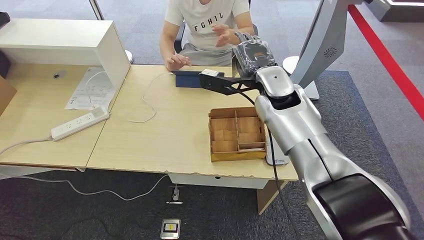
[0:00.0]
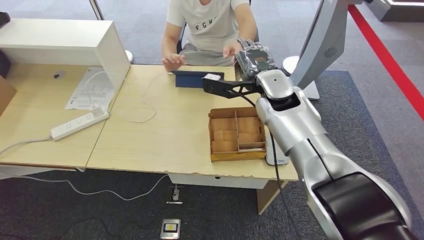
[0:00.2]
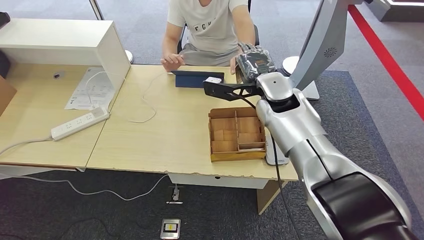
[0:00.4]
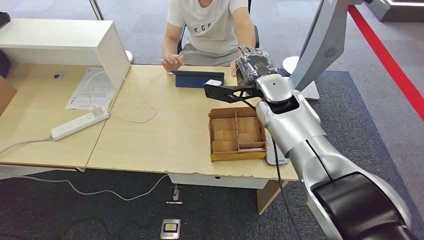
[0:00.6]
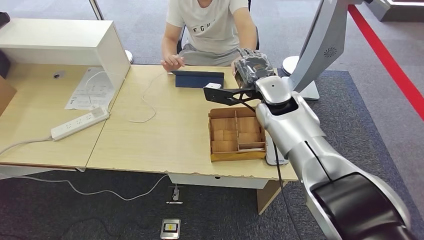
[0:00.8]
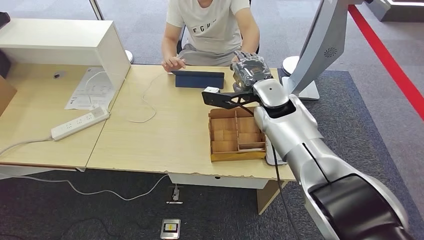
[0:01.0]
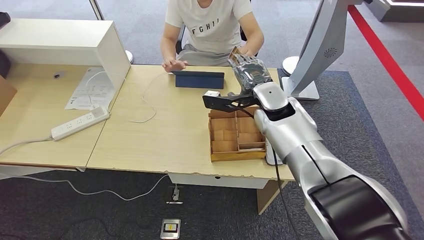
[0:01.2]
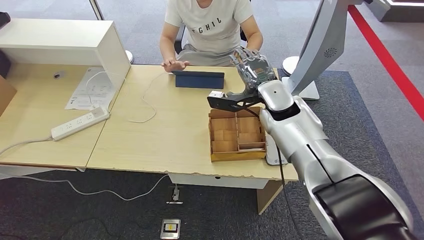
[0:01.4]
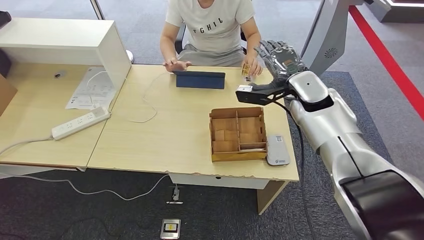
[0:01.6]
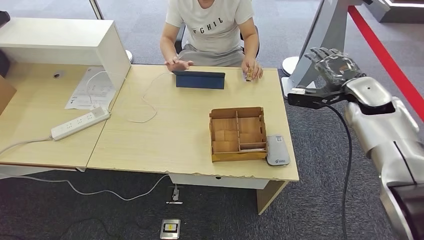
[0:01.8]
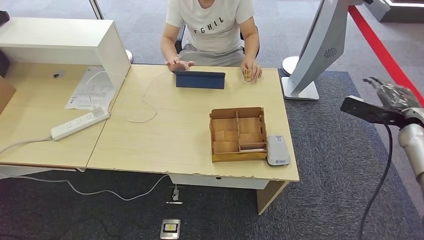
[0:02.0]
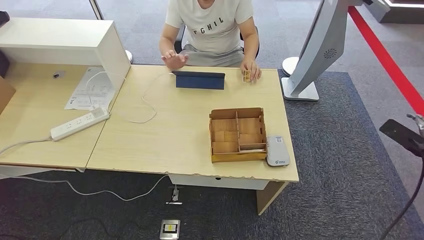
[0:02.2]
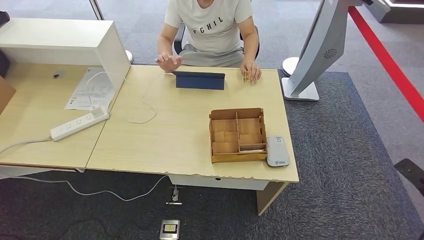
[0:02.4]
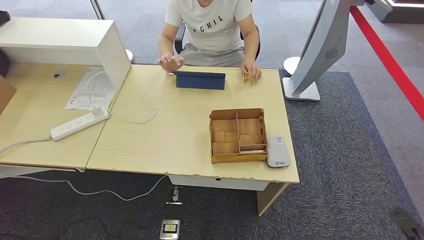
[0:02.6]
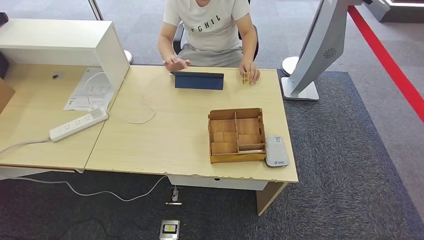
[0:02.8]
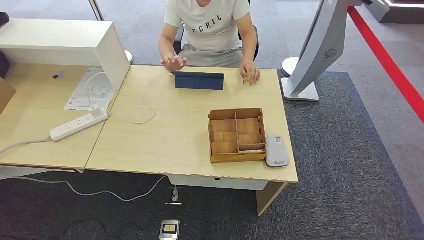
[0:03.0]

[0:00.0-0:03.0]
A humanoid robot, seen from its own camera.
Step, 0:00.0 to 0:03.0: Hand the room key to the person.
0:00.0 to 0:01.6: The right hand travels to the right by roughly 10 cm.
0:01.6 to 0:03.0: The right hand is displaced backward, downward and to the right by some 60 cm.

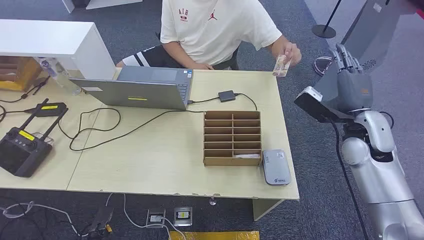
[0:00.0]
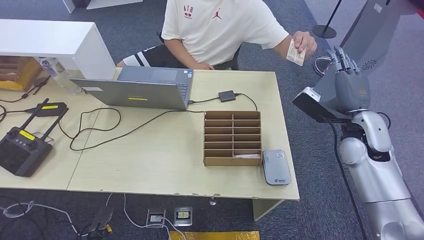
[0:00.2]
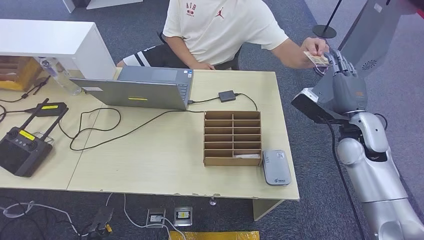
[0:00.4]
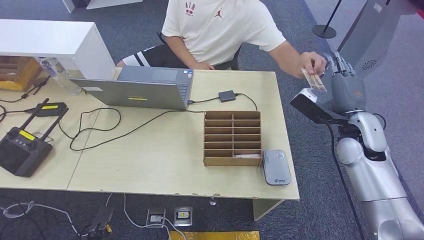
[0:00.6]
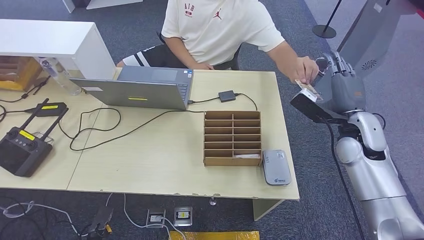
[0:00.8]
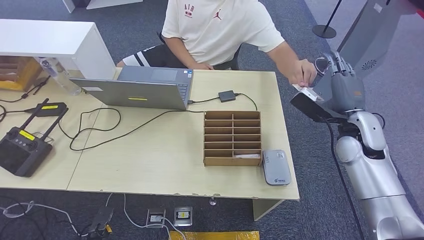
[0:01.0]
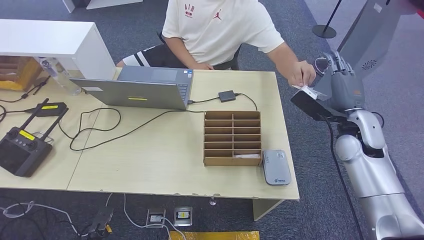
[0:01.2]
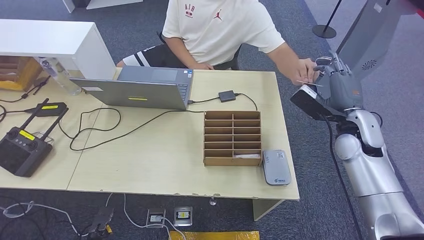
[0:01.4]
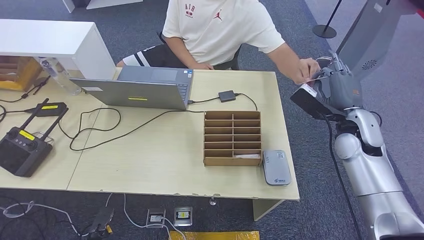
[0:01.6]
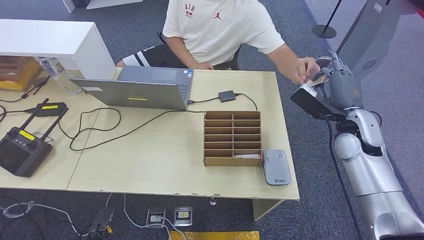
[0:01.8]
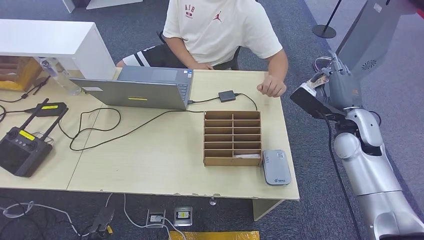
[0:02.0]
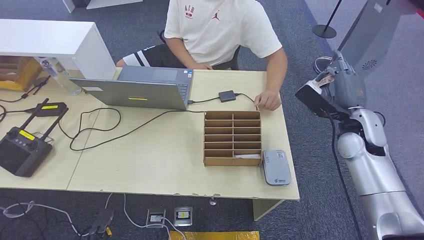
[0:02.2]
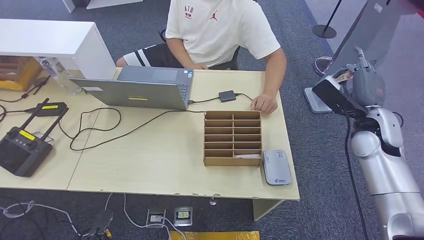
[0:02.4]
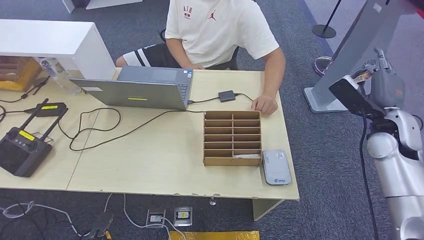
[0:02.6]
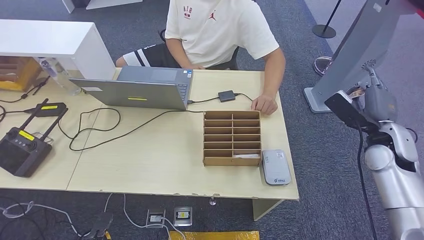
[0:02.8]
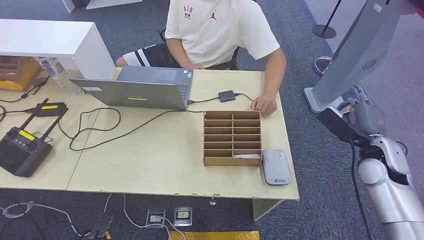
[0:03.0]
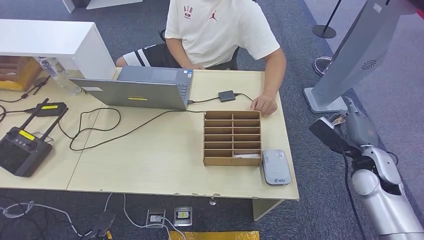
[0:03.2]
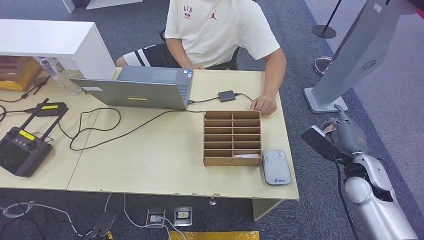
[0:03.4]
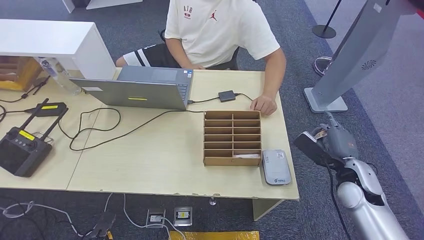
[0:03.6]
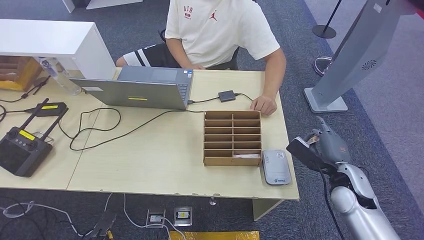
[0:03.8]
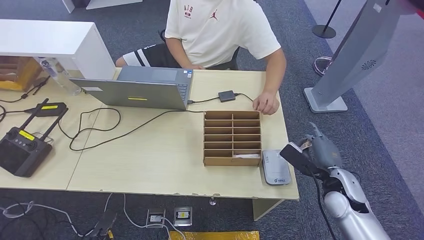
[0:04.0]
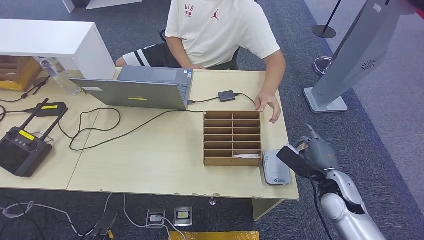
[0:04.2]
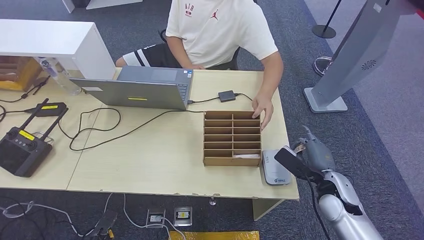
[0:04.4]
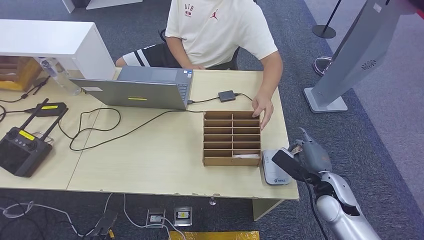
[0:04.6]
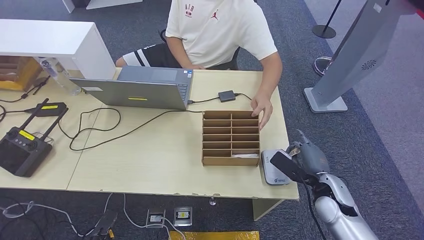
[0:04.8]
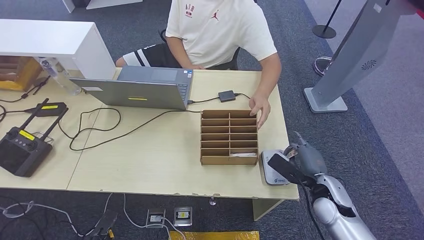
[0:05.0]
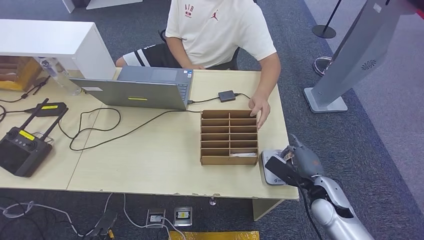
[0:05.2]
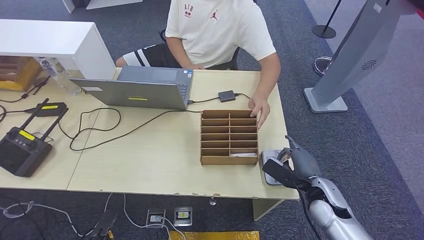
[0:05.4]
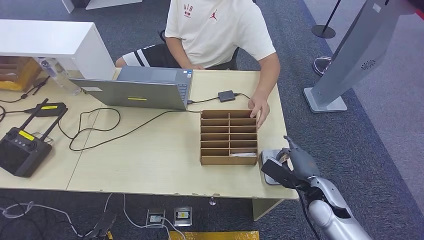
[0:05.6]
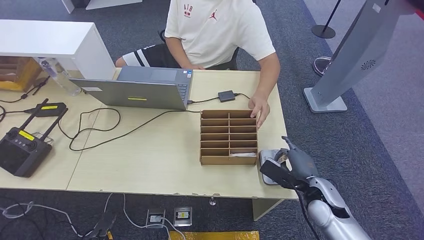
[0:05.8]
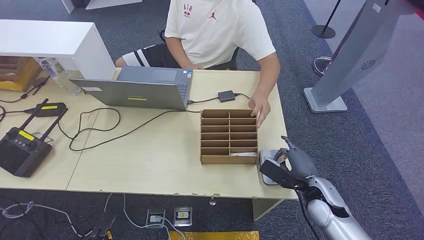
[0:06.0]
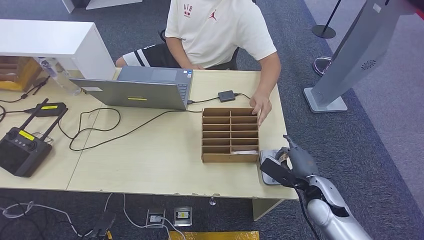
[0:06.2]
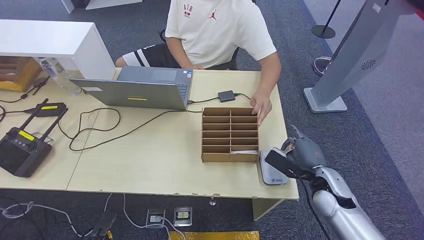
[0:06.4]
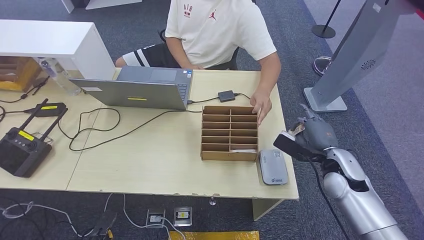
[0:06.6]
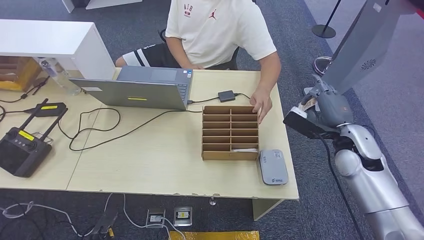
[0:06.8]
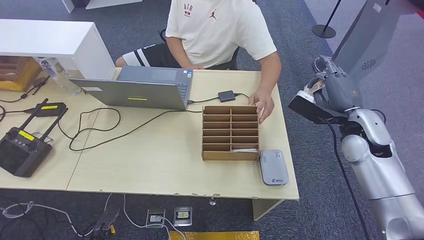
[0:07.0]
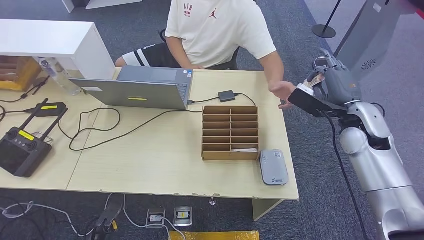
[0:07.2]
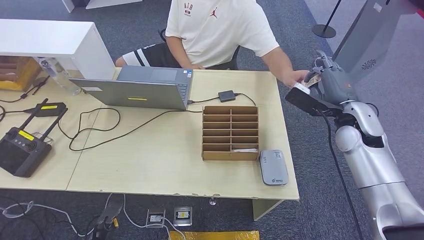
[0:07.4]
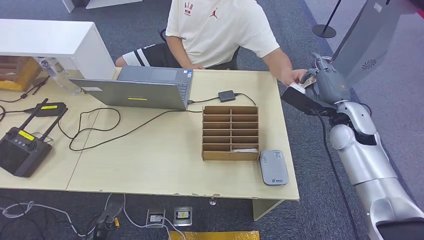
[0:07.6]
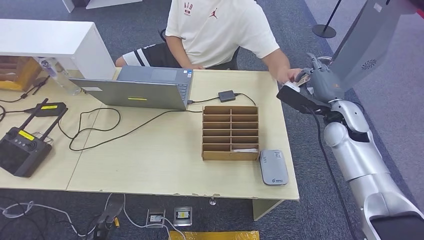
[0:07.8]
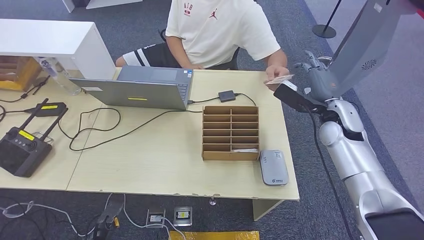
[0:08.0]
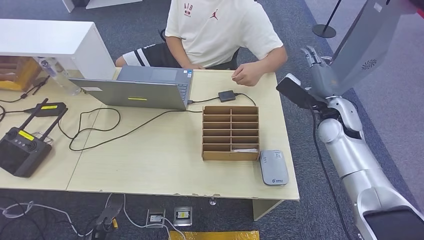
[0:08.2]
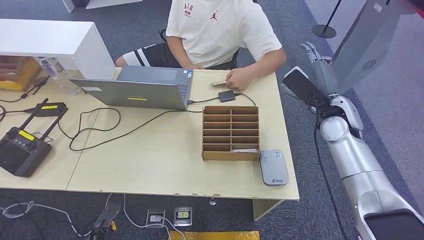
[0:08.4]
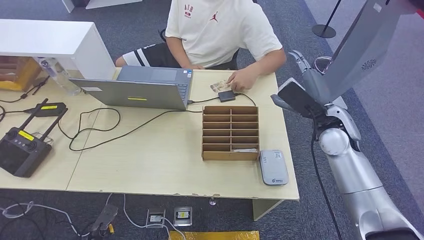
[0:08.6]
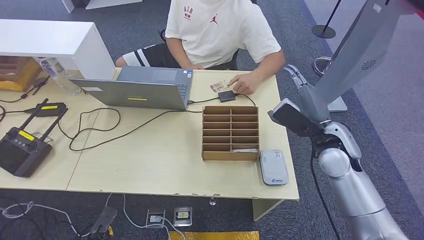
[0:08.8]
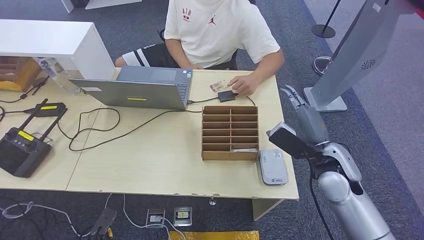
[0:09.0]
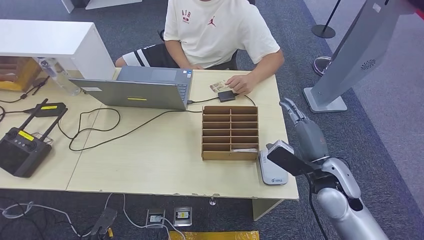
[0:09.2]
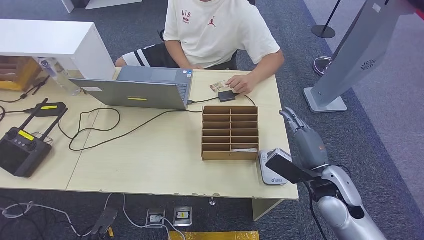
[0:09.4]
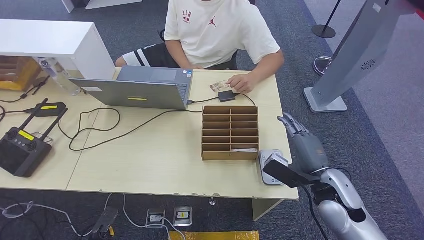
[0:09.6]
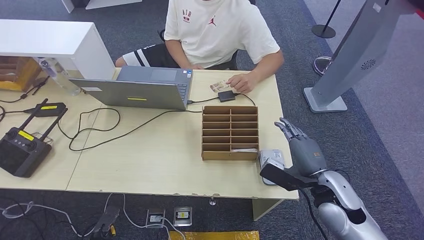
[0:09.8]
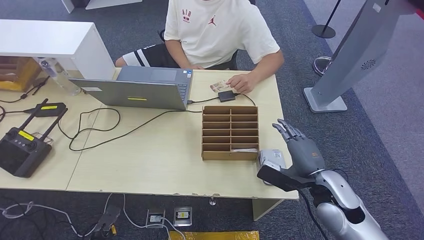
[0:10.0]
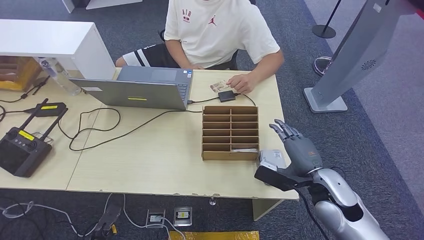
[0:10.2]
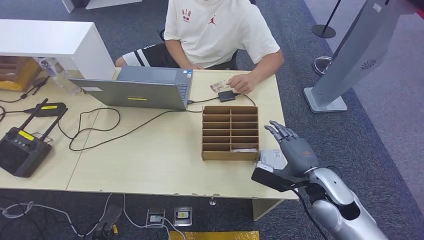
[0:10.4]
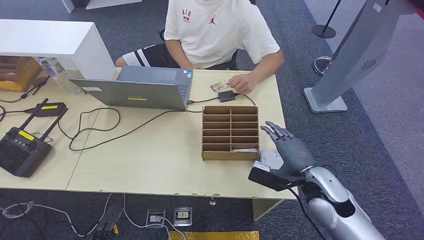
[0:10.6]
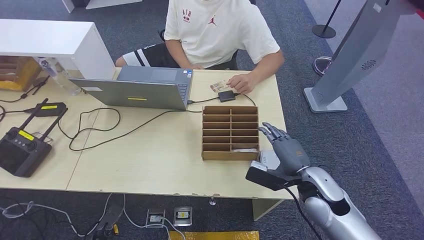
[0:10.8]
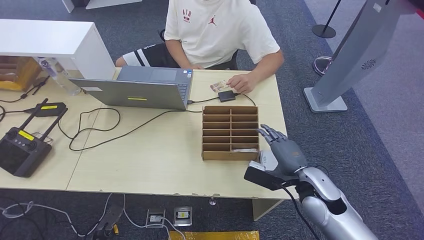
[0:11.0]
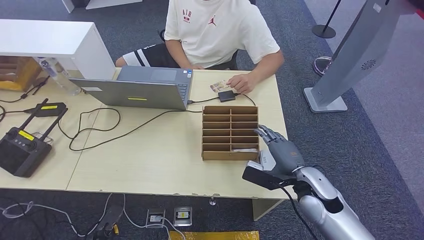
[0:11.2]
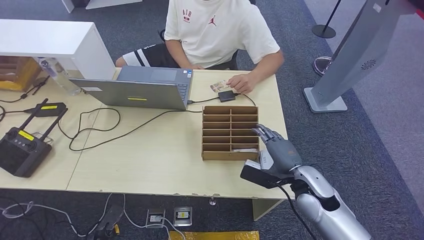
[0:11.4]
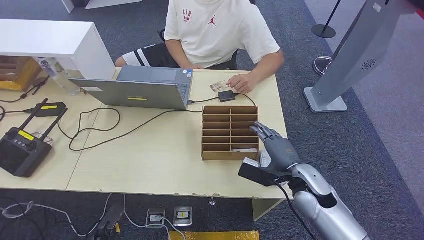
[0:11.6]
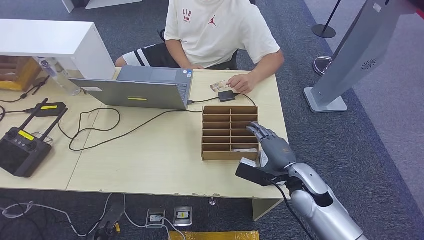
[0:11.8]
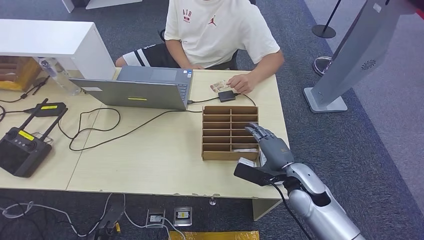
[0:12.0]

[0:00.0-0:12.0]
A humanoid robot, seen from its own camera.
Step, 0:00.0 to 0:02.8: Take the ID card from the person's hand.
Step, 0:03.0 to 0:05.2: Place the ID card on the card reader.
Step, 0:05.4 to 0:08.2: Hand the ID card to the person.
0:01.6 to 0:03.0: The right hand heads to the right, covering roughly 5 cm.
0:03.0 to 0:04.4: The right hand goes about 15 cm downward, to the left and backward.
0:04.4 to 0:06.0: The hands stay close to where they were, moving slightly.
0:06.0 to 0:07.6: The right hand is displaced upward and forward by about 20 cm.
0:07.6 to 0:09.0: The right hand is displaced backward and to the left by roughly 10 cm.
0:09.0 to 0:10.4: The right hand travels downward and backward by about 5 cm.
0:10.4 to 0:12.0: The right hand moves about 5 cm.

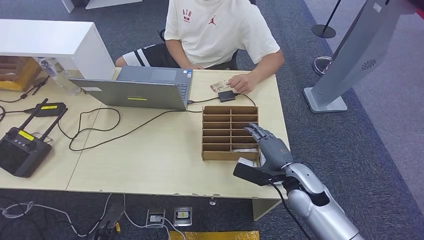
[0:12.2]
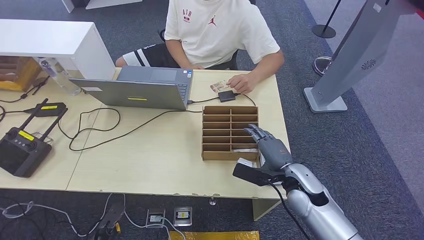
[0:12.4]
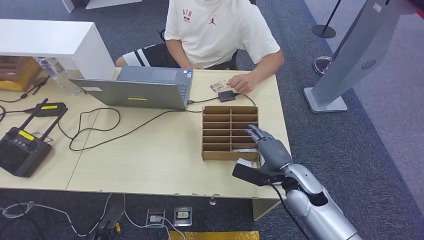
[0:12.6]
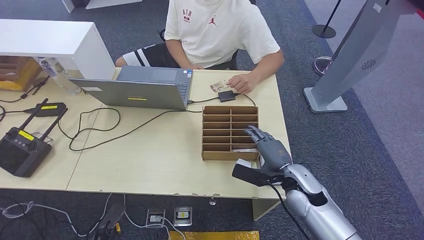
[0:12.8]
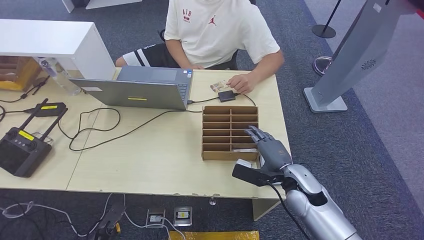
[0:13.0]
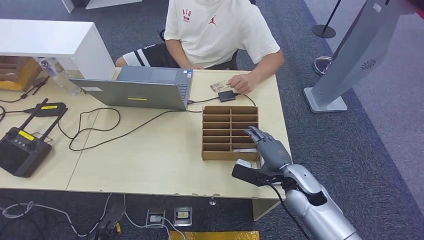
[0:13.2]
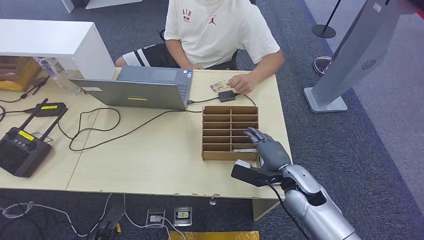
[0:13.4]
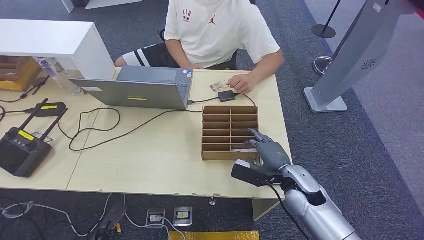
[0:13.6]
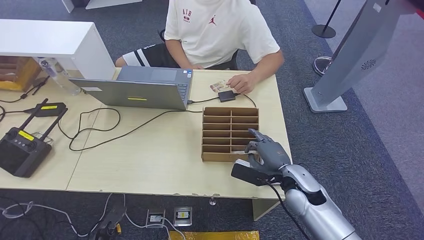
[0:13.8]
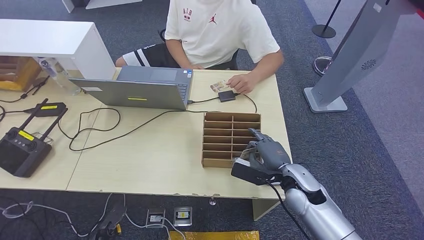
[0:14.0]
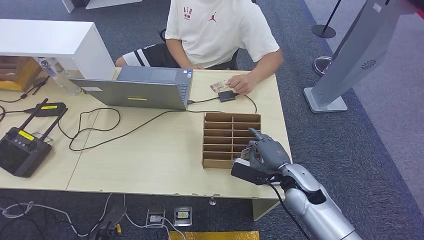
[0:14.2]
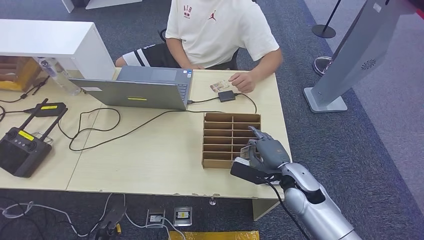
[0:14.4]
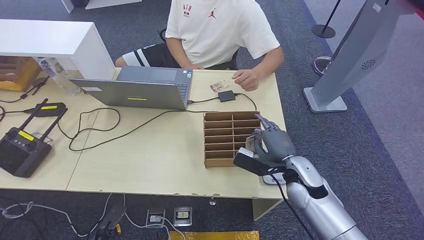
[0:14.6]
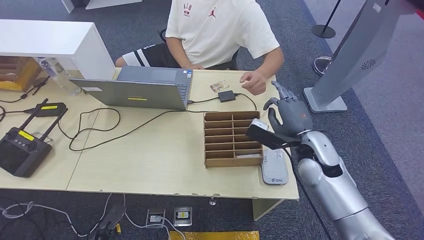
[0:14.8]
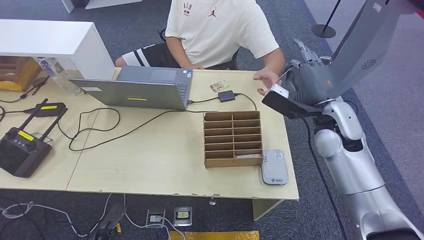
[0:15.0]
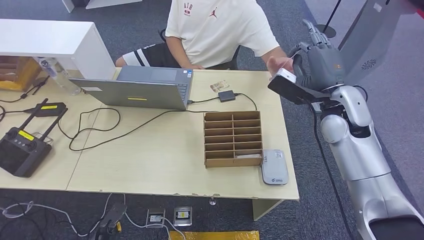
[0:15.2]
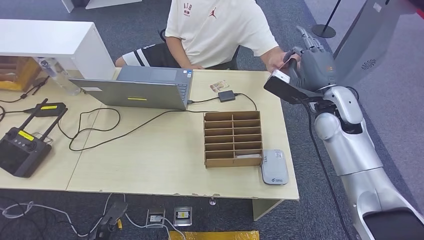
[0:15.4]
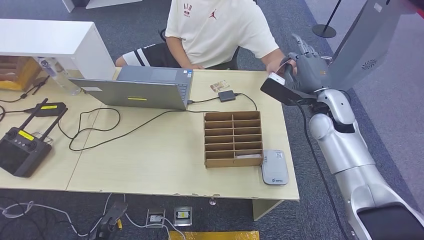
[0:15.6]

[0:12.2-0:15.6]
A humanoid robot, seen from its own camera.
Step, 0:12.2 to 0:14.8: Pick up the room key from the key card box.
0:12.2 to 0:13.8: There are only small adjustments of the hands.
0:13.8 to 0:15.6: The right hand heads upward and forward, covering roughly 20 cm.
